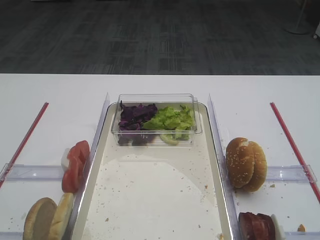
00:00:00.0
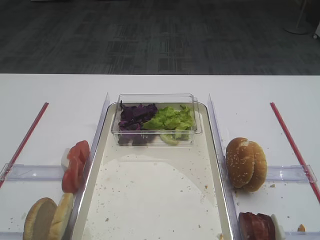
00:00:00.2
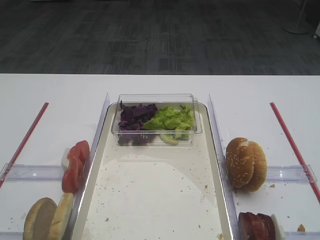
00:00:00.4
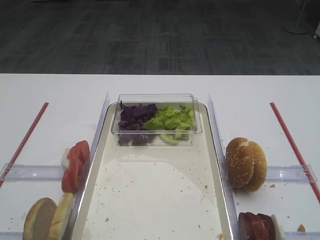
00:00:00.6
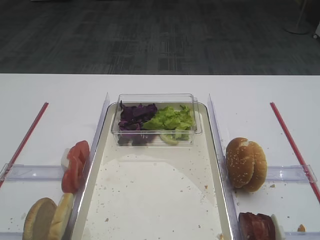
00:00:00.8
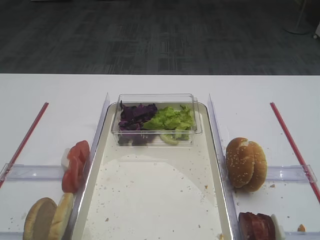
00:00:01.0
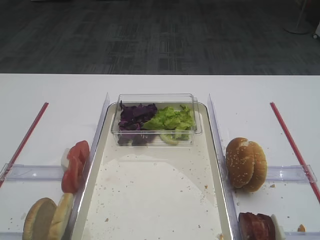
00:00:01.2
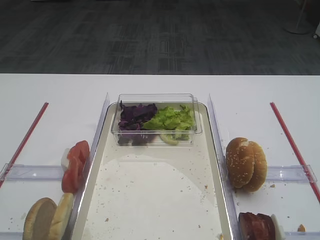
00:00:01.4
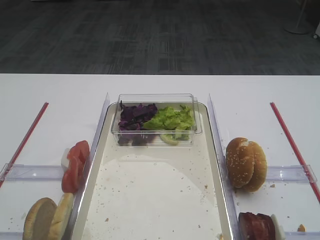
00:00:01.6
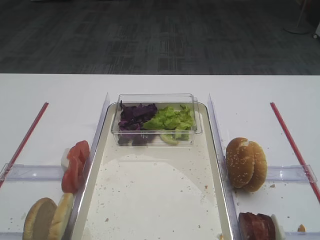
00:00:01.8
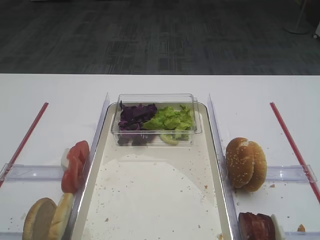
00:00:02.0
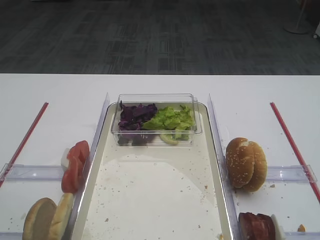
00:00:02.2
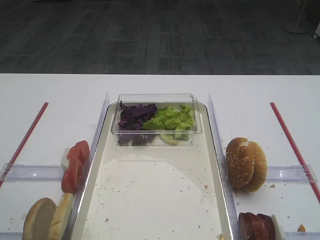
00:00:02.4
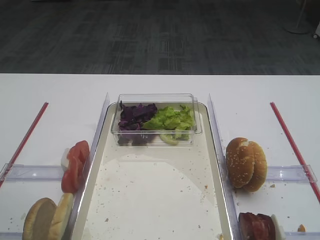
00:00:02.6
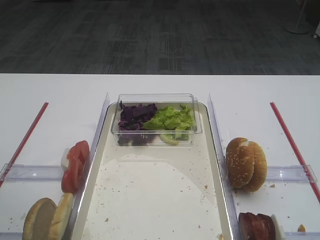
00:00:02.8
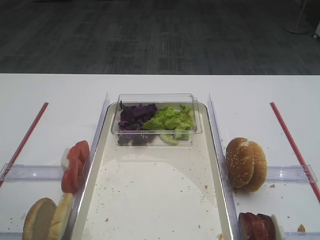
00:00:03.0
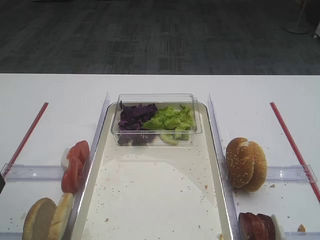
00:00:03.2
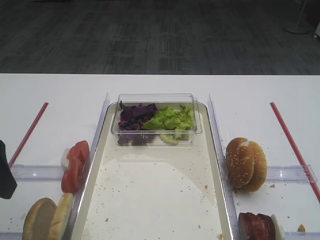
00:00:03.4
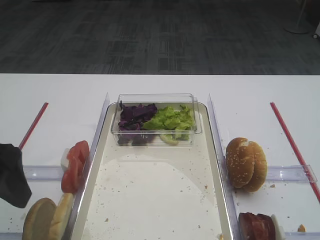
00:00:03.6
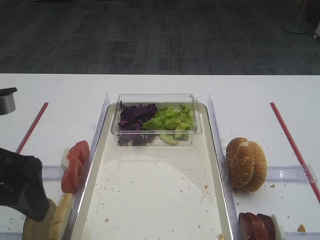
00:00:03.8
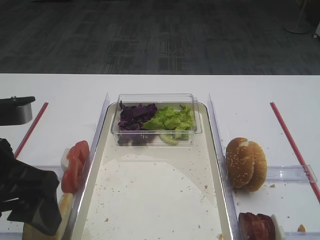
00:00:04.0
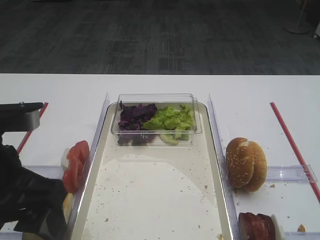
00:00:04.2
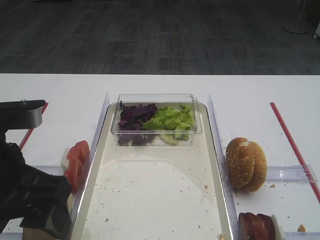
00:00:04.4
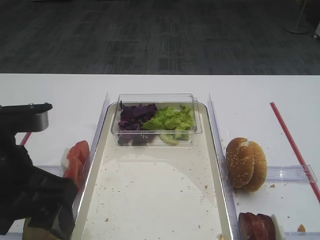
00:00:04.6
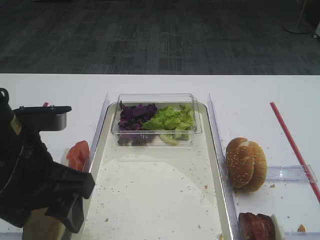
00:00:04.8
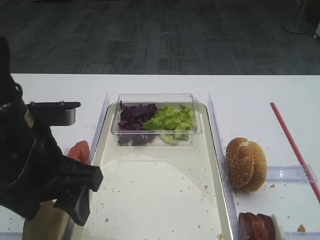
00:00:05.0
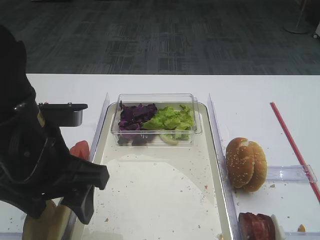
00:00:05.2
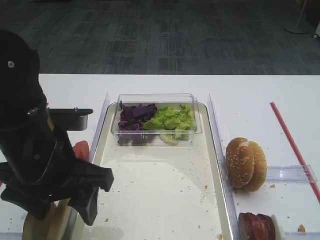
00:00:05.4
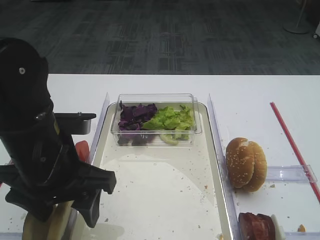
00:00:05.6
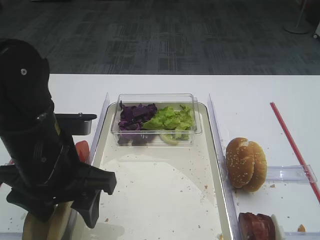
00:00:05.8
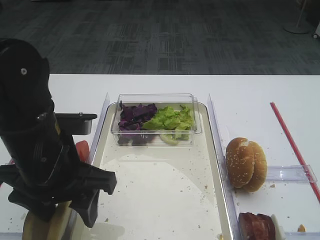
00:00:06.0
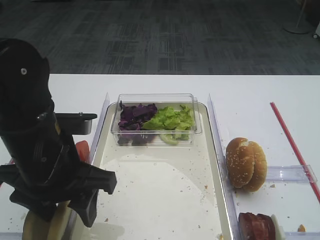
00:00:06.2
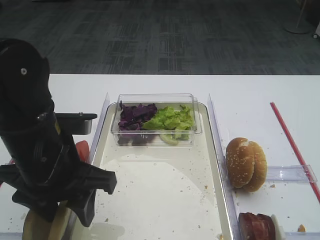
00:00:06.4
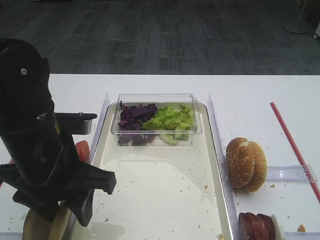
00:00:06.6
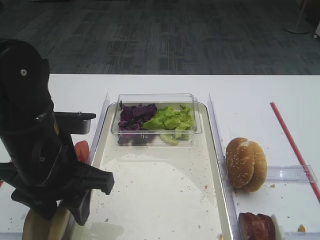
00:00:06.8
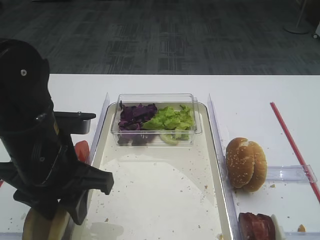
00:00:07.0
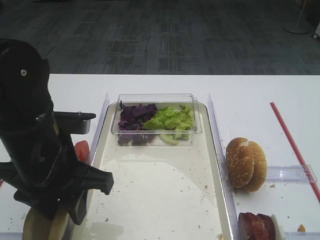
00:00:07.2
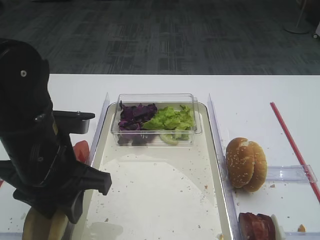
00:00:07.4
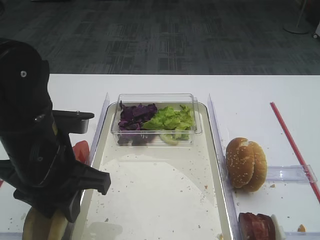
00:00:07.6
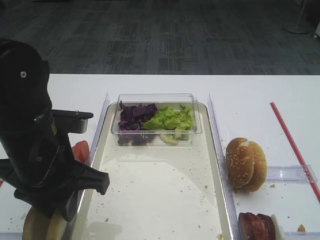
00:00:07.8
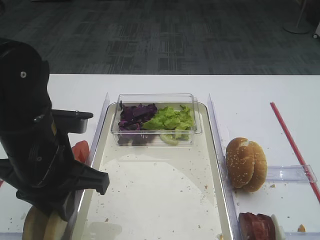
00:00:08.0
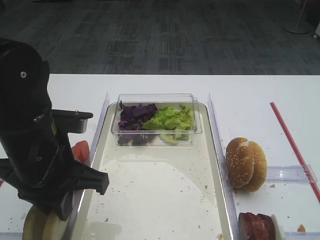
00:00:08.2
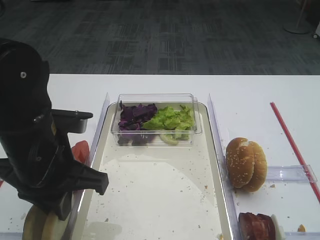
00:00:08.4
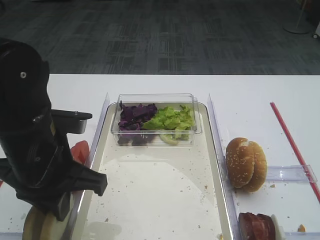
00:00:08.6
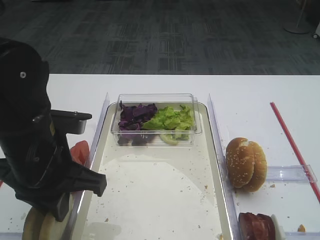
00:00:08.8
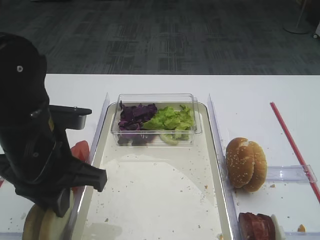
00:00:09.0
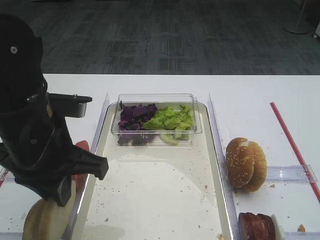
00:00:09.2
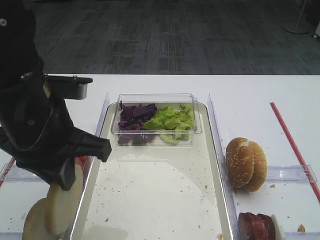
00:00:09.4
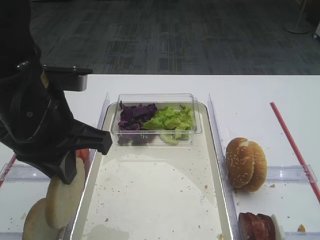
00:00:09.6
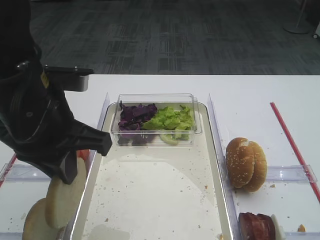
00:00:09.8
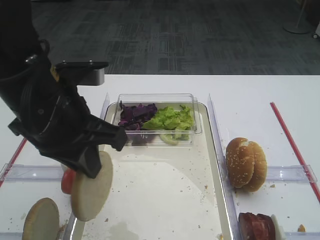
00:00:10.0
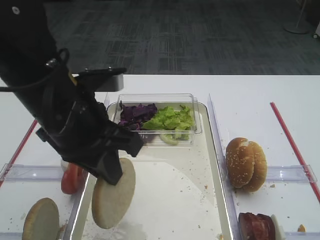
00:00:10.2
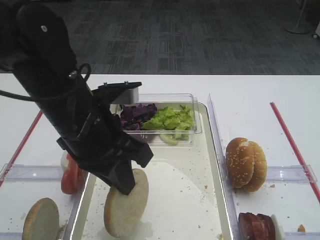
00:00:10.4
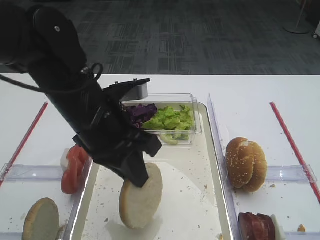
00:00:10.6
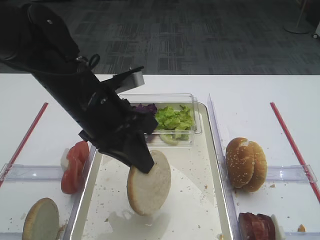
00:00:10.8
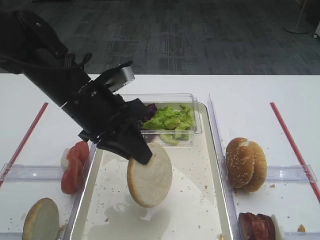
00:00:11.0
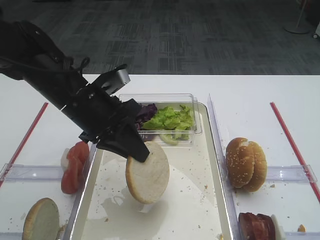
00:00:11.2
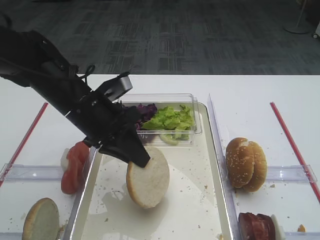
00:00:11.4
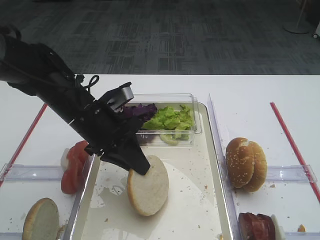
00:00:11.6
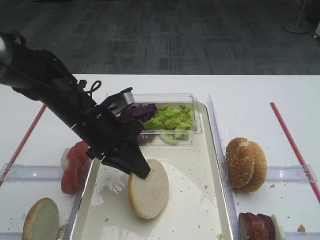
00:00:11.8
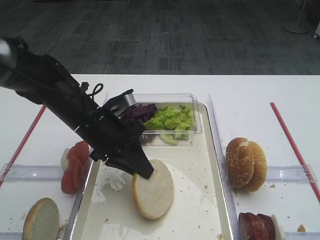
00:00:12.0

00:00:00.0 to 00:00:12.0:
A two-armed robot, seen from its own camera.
Step, 00:00:00.0 to 00:00:09.6: Pick up the bread slice with the left gripper.
00:00:03.0 to 00:00:04.4: The left gripper moves to the right, approximately 10 cm.
00:00:04.4 to 00:00:06.0: The left gripper moves forward, about 5 cm.
00:00:06.0 to 00:00:07.6: The left gripper closes its fingers.
00:00:07.6 to 00:00:09.0: Both grippers stay about where they are.
00:00:09.0 to 00:00:10.4: The left gripper shifts by about 5 cm.
00:00:10.4 to 00:00:12.0: The left gripper heads downward and forward, covering approximately 10 cm.

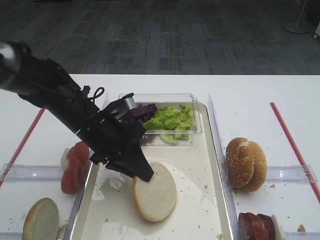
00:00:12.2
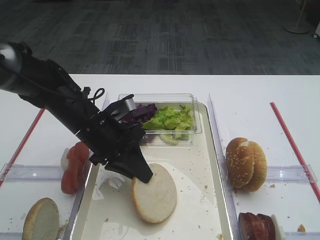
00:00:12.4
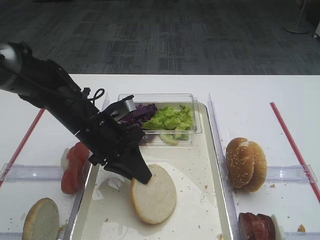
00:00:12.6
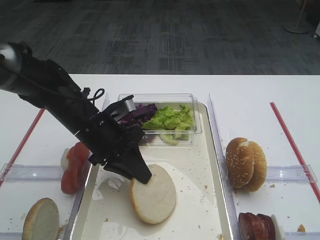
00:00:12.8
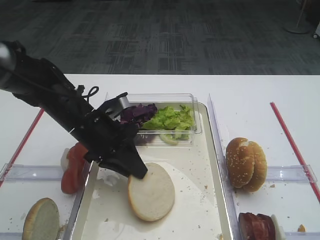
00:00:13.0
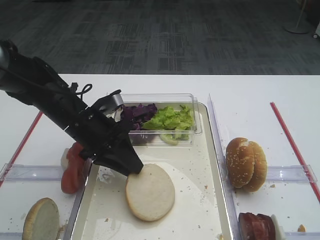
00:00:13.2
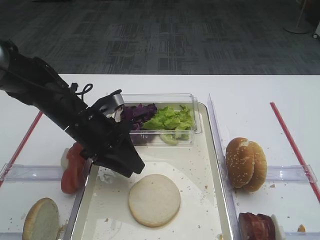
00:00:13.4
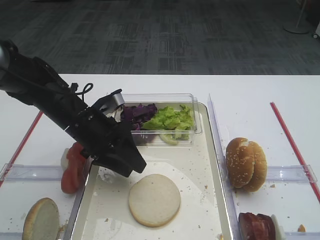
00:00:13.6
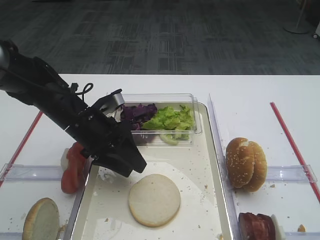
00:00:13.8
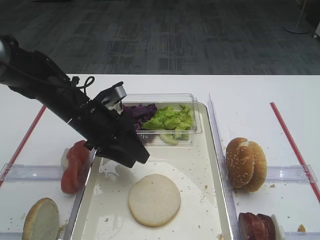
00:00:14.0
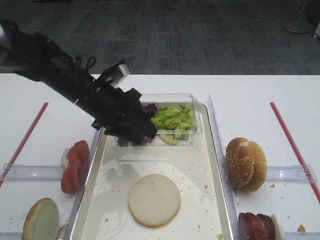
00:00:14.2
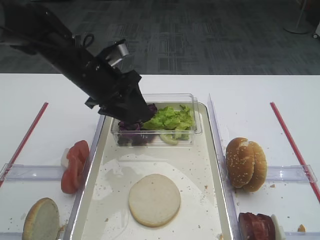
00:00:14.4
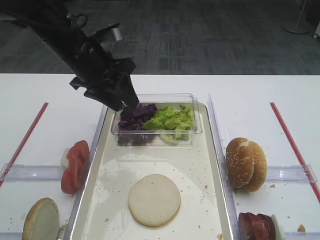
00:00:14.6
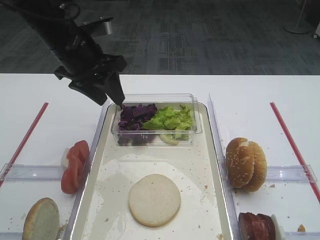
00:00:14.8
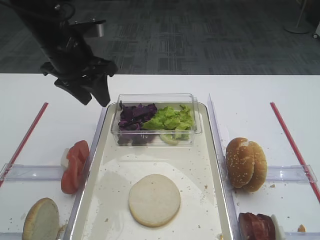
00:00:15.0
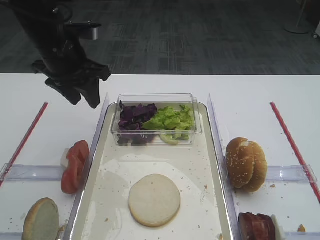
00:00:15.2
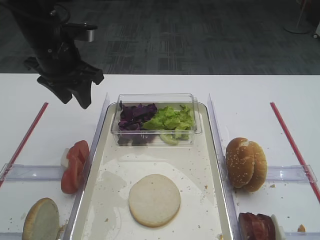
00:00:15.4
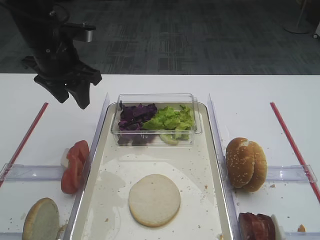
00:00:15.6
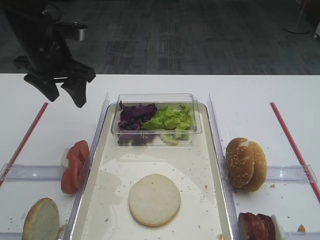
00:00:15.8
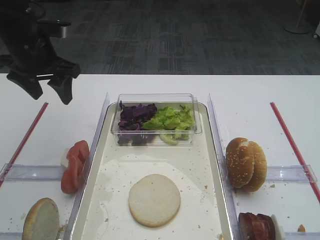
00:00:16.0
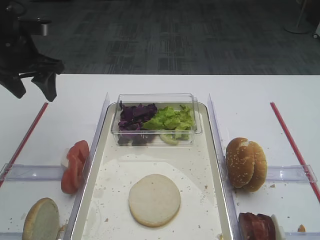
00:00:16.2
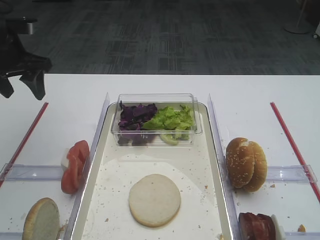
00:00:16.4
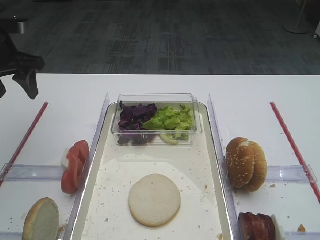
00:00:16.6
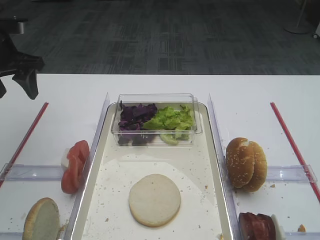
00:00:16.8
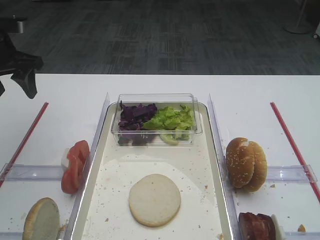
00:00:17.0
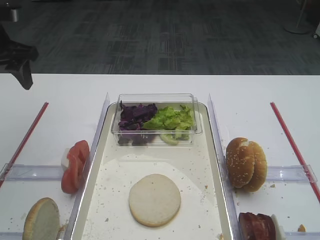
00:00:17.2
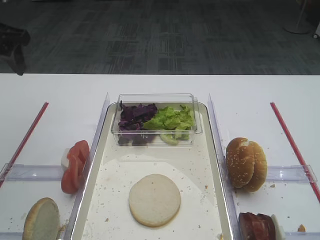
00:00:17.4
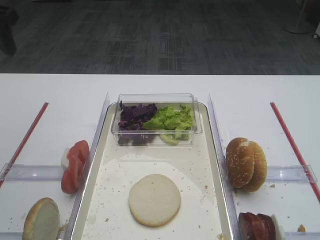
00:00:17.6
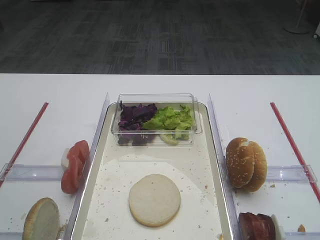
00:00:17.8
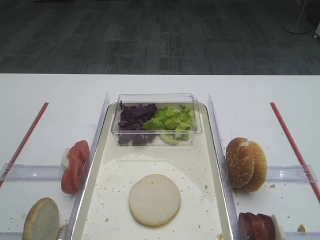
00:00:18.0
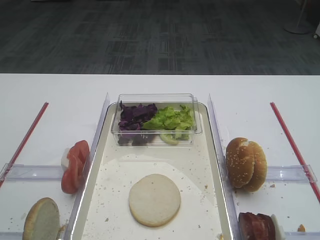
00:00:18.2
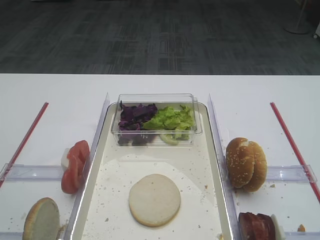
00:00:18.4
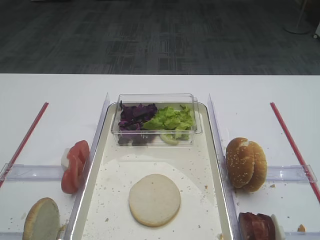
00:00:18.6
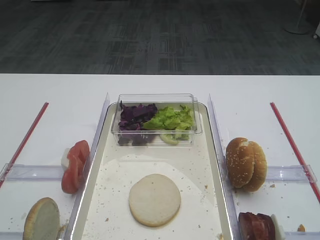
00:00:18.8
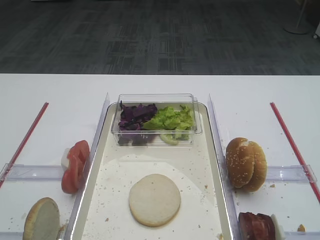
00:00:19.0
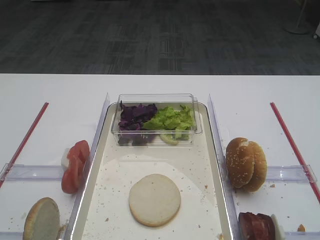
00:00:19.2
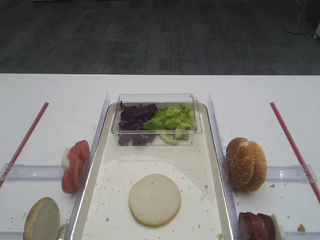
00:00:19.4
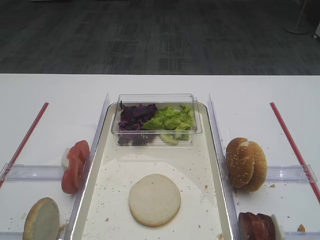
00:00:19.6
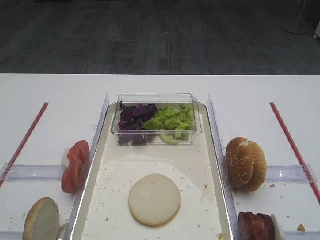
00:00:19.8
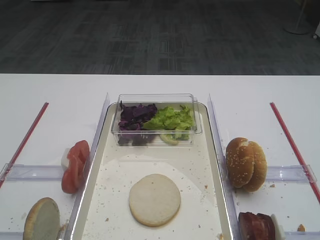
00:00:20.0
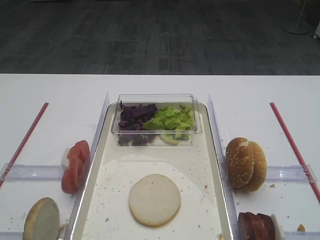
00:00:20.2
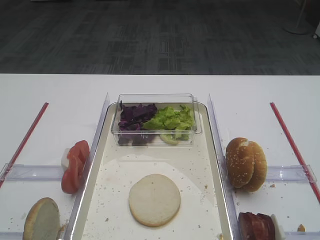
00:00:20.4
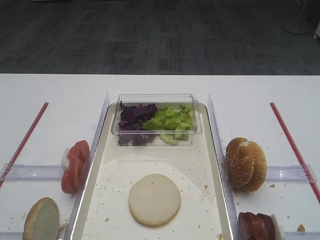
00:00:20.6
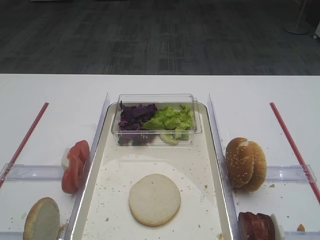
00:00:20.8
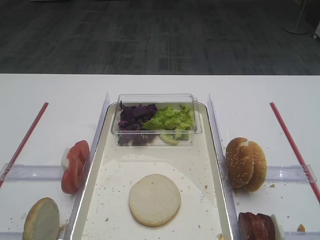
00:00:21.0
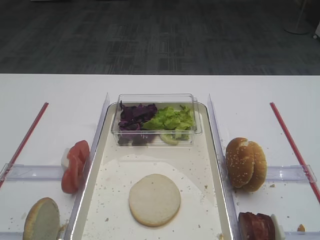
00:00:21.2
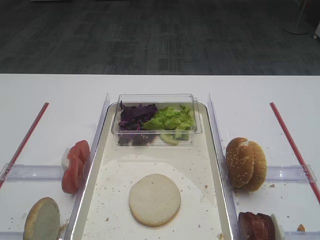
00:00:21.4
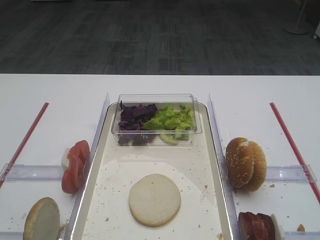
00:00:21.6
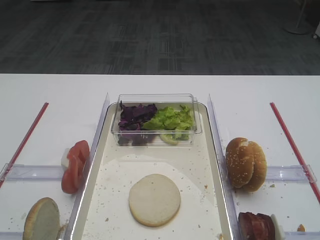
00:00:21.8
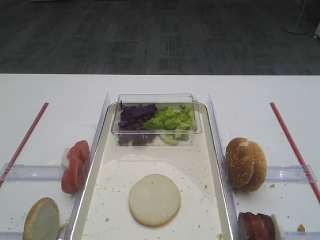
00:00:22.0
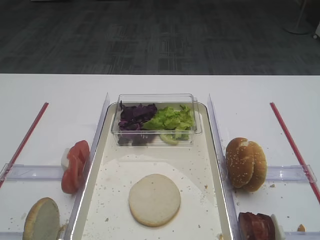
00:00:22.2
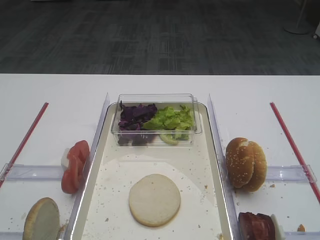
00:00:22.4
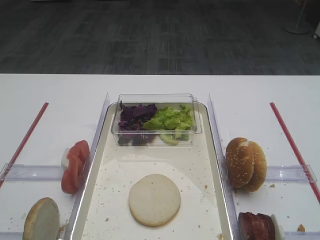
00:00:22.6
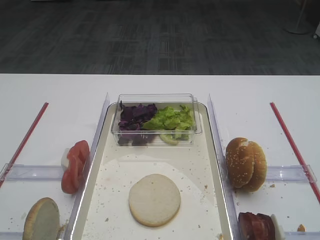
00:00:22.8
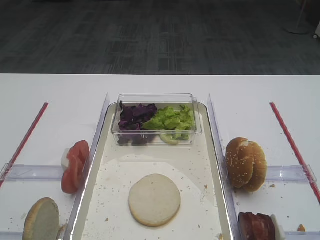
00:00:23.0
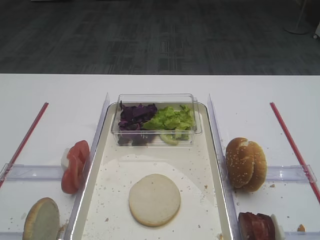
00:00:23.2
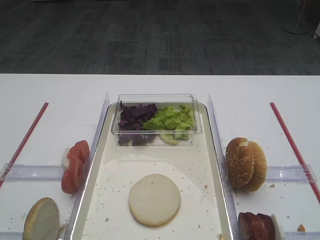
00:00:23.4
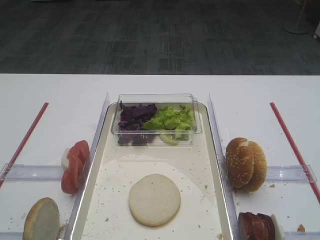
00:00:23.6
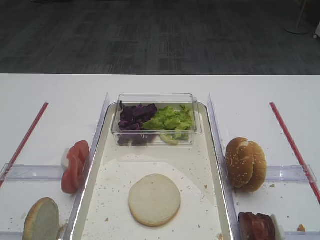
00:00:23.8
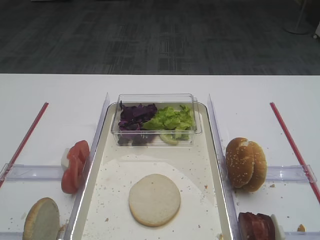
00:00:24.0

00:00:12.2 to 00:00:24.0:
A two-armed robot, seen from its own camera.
00:00:12.2 to 00:00:13.6: The left gripper opens.
00:00:13.6 to 00:00:15.2: The left gripper travels upward and forward by some 15 cm.
00:00:15.2 to 00:00:16.6: The left gripper moves to the left, about 10 cm.
00:00:16.6 to 00:00:18.2: The left gripper is displaced backward and upward by approximately 25 cm.
00:00:19.6 to 00:00:24.0: Both grippers stay about where they are.
